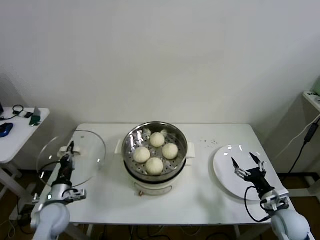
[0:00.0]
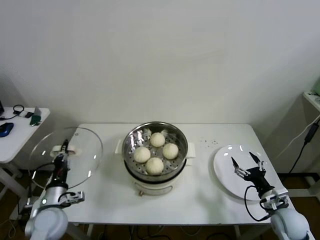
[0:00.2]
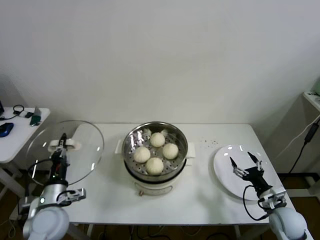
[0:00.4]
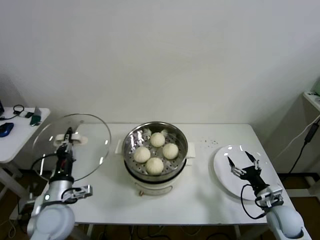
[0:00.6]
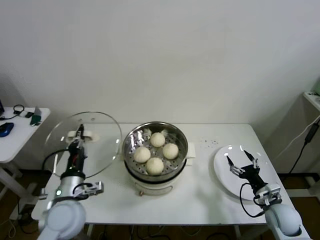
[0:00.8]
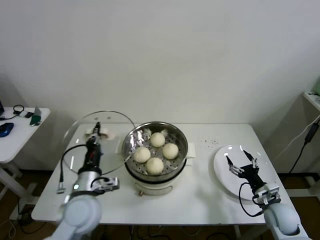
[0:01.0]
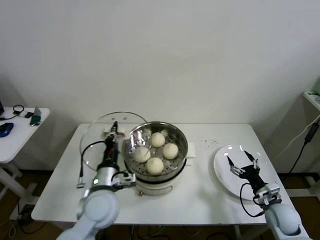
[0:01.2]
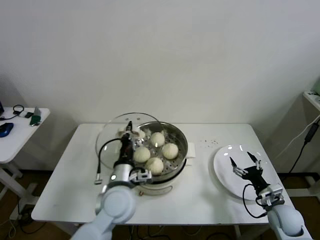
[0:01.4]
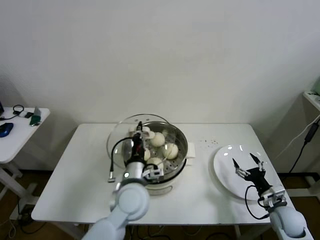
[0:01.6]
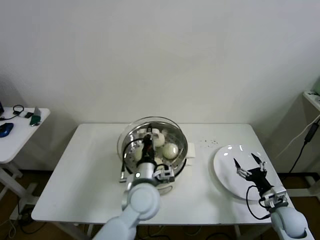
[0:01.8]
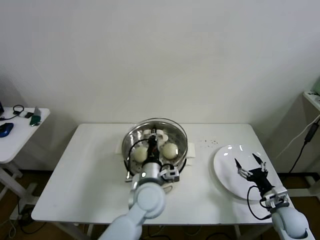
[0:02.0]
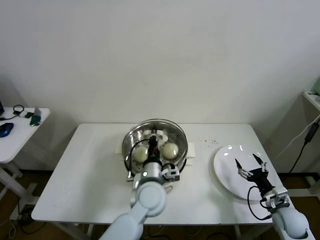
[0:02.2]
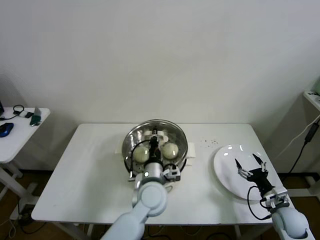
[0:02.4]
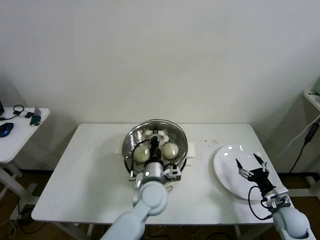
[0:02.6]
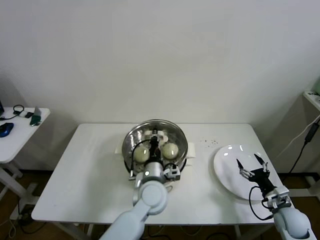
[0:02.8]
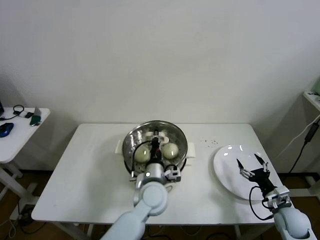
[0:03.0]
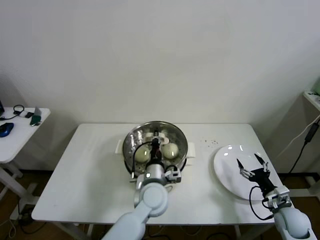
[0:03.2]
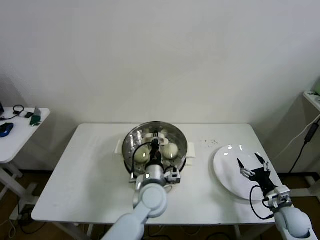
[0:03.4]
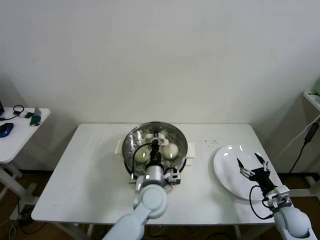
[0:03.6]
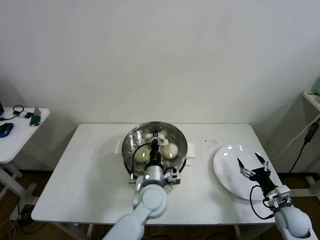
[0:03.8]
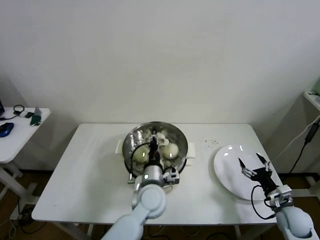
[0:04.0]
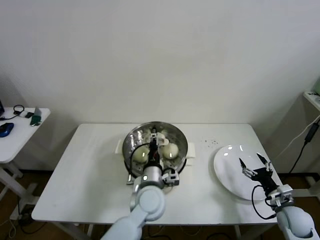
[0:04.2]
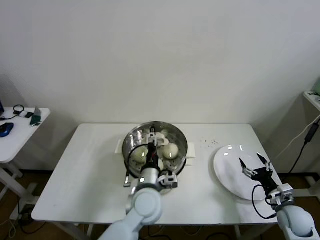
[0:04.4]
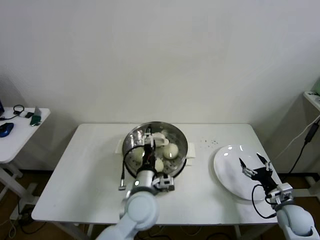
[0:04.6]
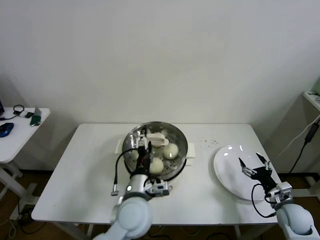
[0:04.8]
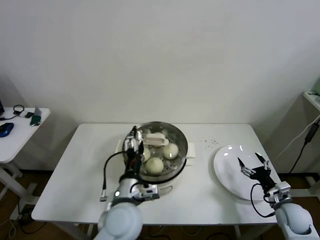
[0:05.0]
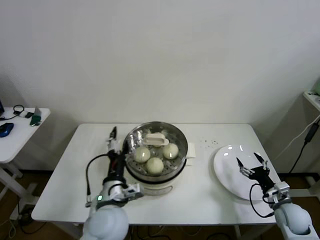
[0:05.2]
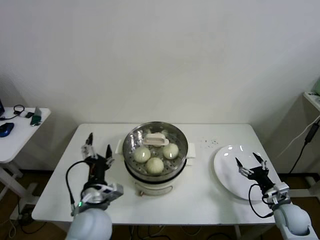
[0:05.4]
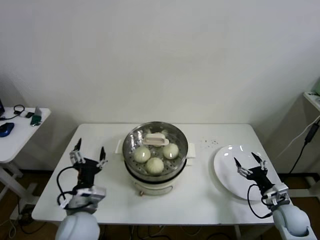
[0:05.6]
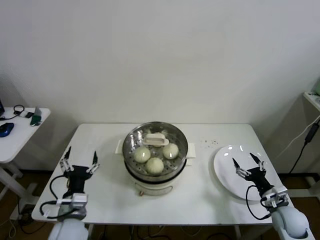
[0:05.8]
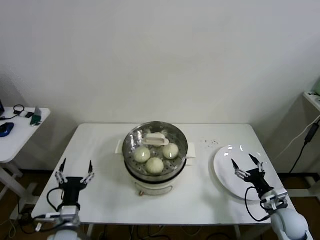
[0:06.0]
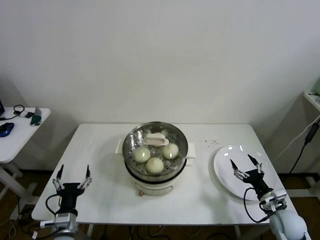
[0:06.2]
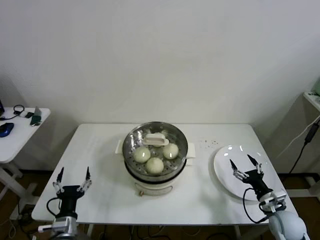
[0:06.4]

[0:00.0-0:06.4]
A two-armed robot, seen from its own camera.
Step, 0:00.0 to 0:04.0: Place the pot lid on the steamer with left gripper.
0:00.0 to 0:01.6: The left gripper heads to the right and upward, covering some 30 cm.
0:01.6 to 0:03.2: The left gripper shifts about 10 cm to the right and downward.
0:03.2 to 0:04.8: The left gripper moves backward, roughly 5 cm, and opens up.
0:04.8 to 0:06.4: The left gripper goes some 25 cm to the left and downward.
